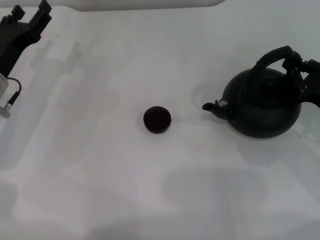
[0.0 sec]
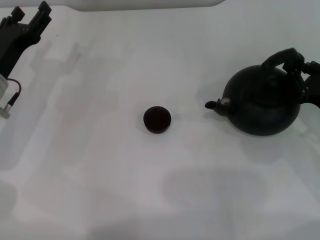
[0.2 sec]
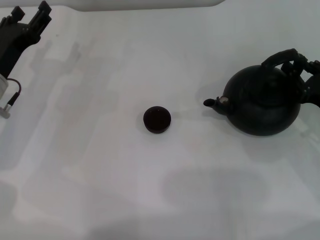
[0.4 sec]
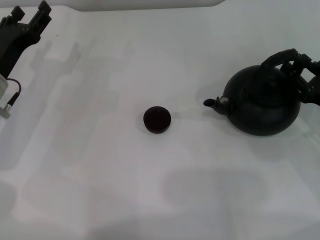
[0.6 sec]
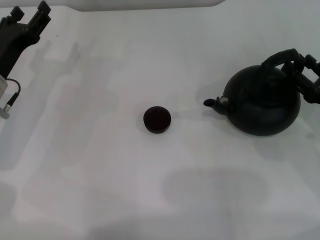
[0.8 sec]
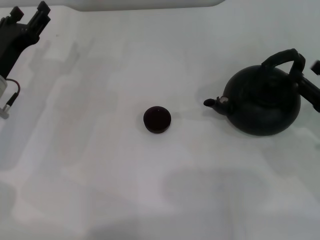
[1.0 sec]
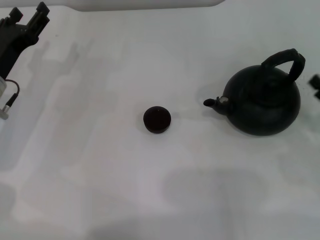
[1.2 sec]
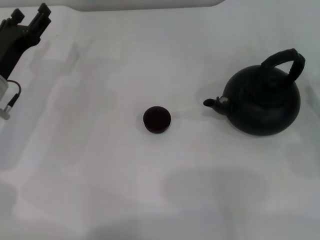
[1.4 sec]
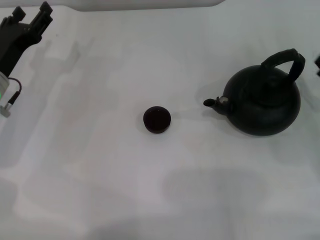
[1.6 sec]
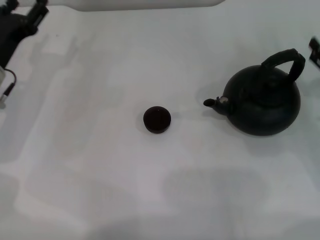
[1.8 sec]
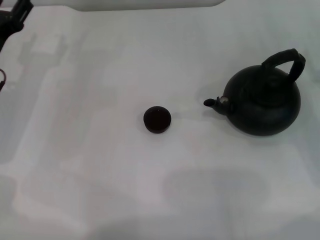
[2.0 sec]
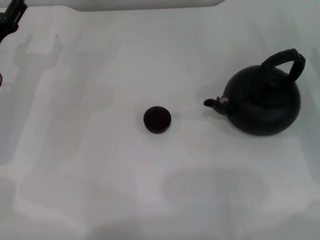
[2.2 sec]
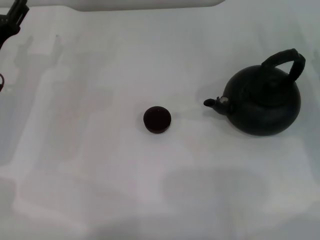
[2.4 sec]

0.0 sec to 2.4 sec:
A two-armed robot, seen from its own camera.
Task of the whole recording: Grasp the handle of the teapot with one hand and pour tea into the teacup.
0.0 sec to 1.2 sec: The right gripper is displaced backward by about 5 cm, and opens its fingers.
